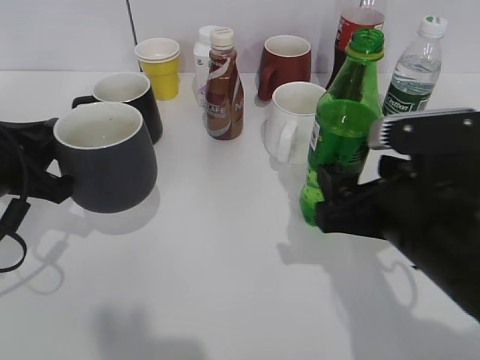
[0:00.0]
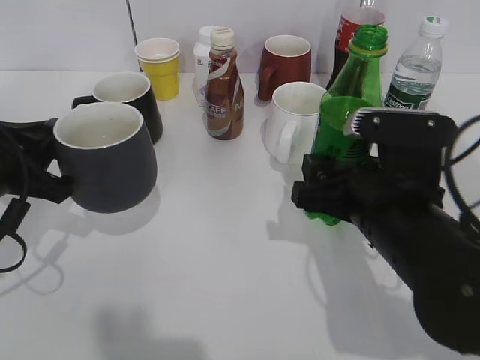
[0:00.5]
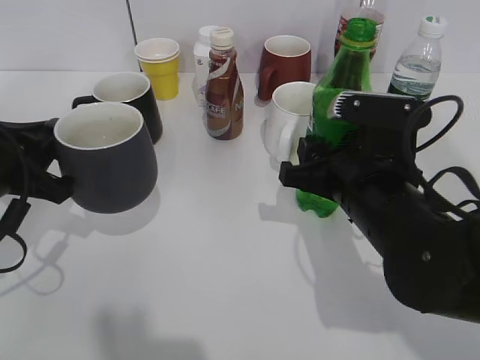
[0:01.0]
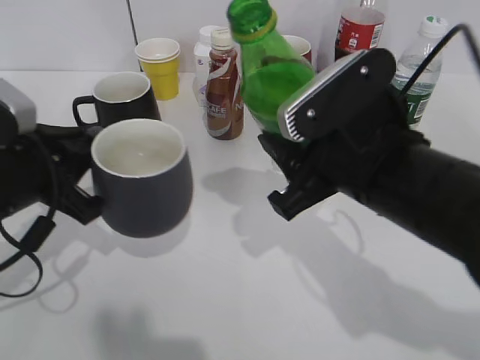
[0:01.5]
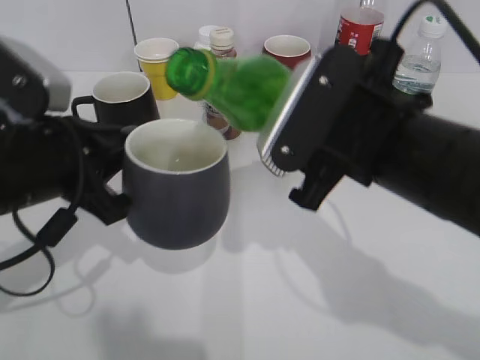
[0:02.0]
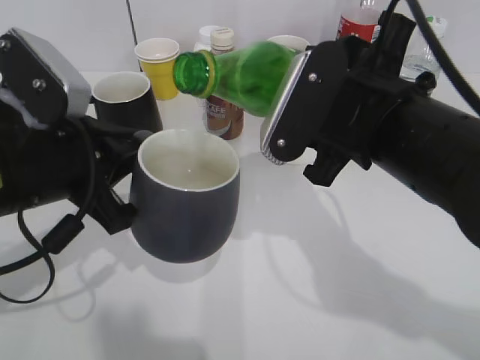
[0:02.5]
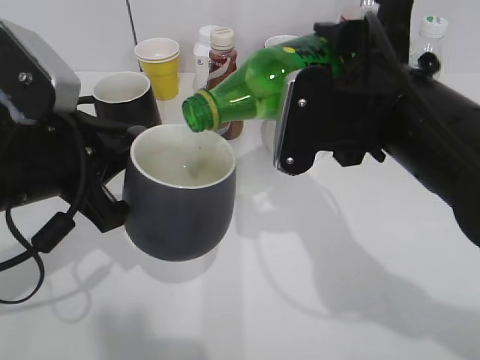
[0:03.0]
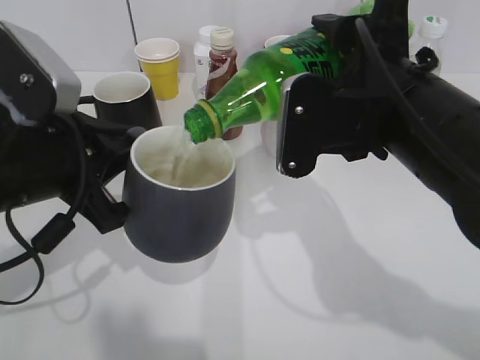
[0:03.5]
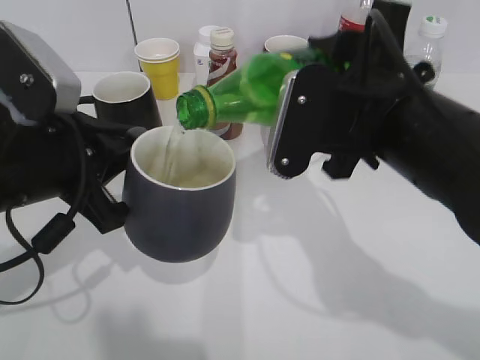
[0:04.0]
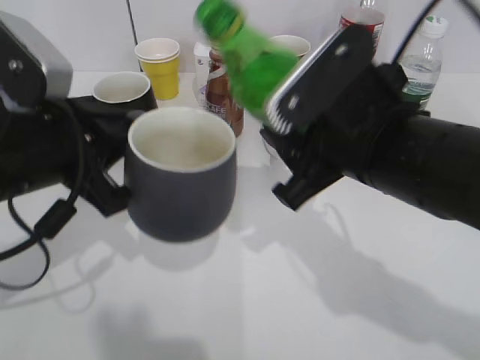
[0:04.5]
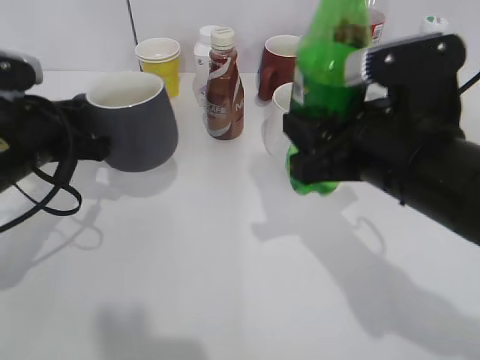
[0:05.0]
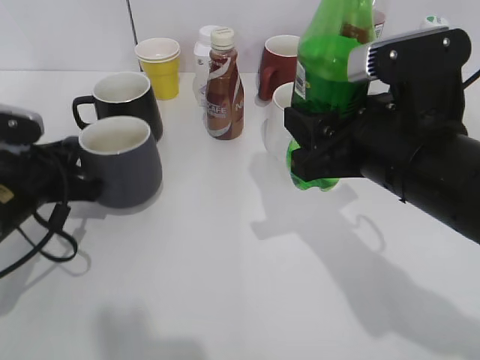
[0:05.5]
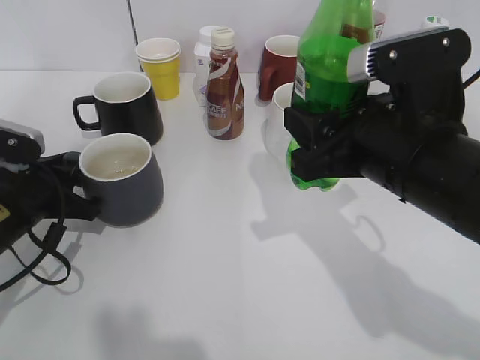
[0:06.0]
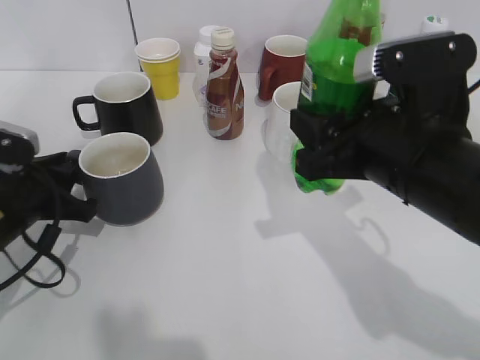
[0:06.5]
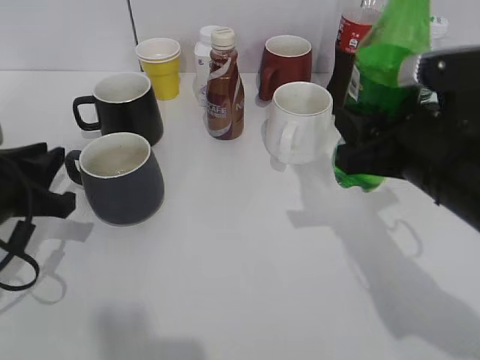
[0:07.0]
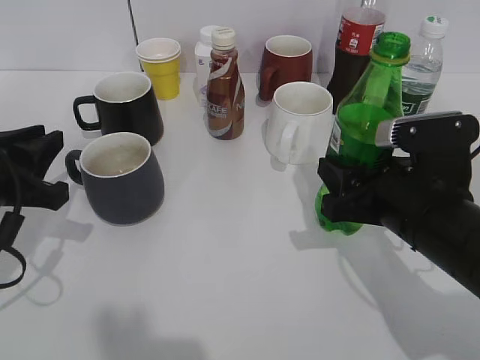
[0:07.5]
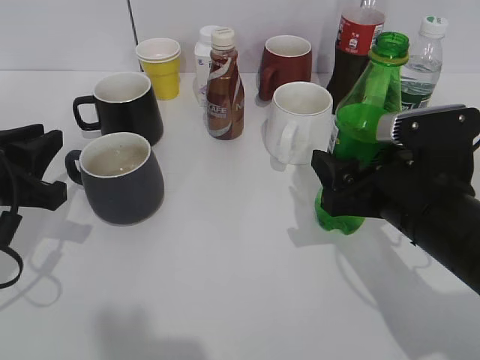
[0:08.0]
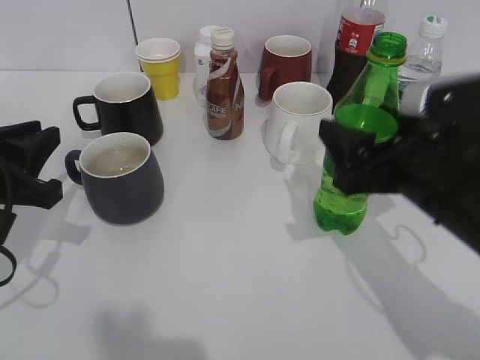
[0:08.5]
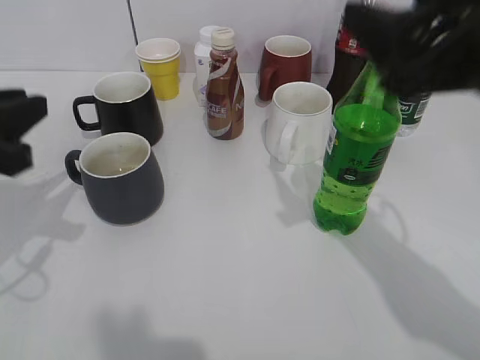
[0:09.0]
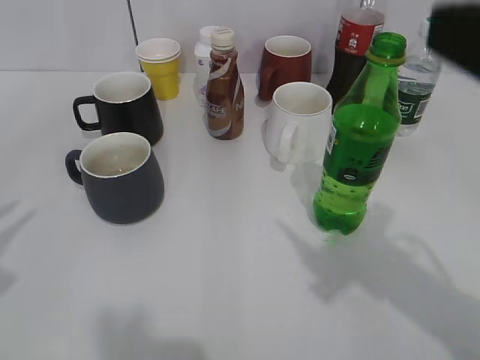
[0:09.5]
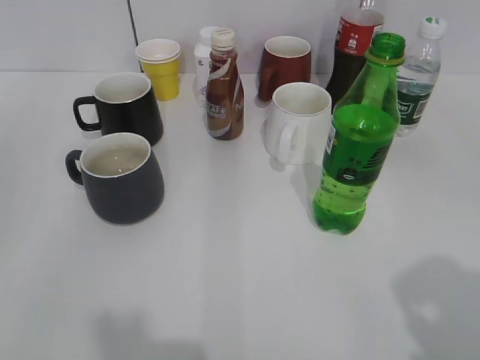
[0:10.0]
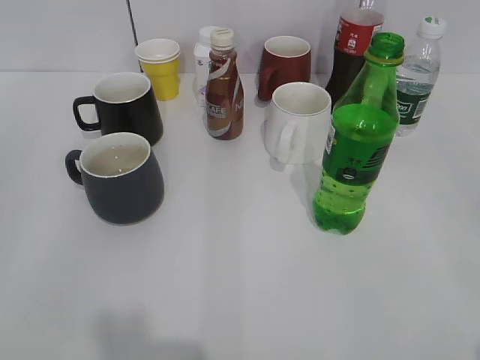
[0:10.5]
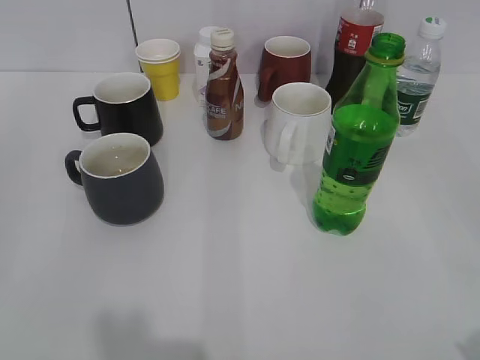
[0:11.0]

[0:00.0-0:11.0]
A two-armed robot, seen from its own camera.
Step, 1.5 to 4.0 s: Pour the sprite from bottle to cup with right gripper.
Step, 4.5 to 6.5 s: Place the grey cup on the table with left gripper.
Step, 7.0 to 8.5 s: Place the sprite bottle on the table with right gripper.
0.0 to 2.0 s: The right gripper goes roughly 5 cm upward, and closes. The left gripper shifts about 5 cm to the right.
3.5 to 5.5 s: The left gripper goes about 15 cm downward, forward and to the left.
5.5 to 7.5 s: The right gripper goes approximately 5 cm downward, while the left gripper moves approximately 5 cm, and opens.
7.5 to 9.0 s: The left gripper is displaced upward by some 5 cm. The right gripper goes approximately 15 cm upward, and opens.
9.0 to 11.0 s: The left gripper moves backward and to the left, roughly 20 cm, and opens. Meanwhile the right gripper heads backward and to the right, covering about 20 cm.

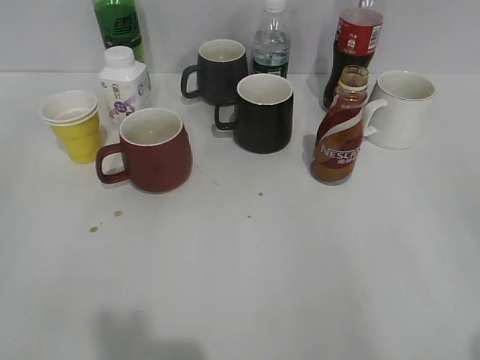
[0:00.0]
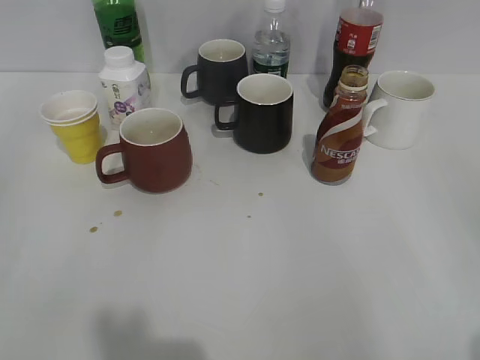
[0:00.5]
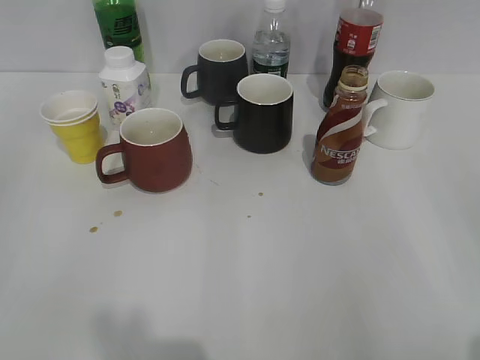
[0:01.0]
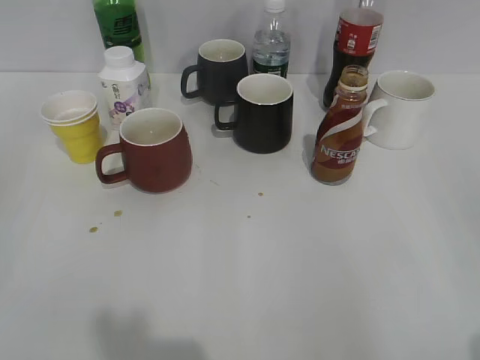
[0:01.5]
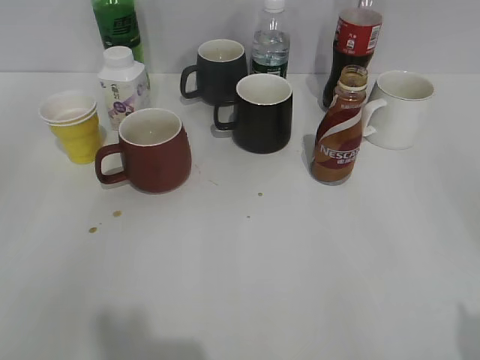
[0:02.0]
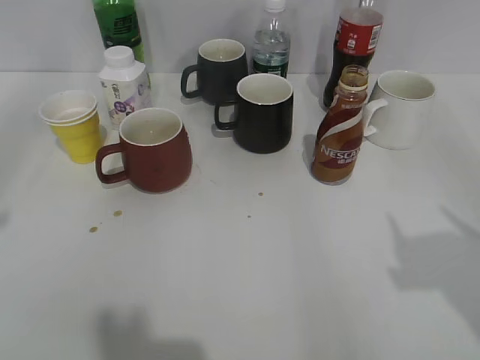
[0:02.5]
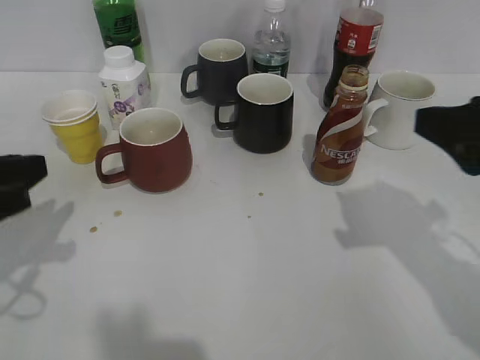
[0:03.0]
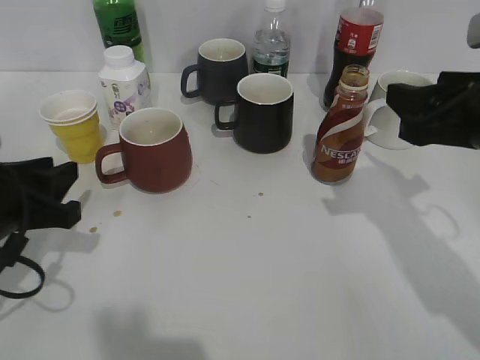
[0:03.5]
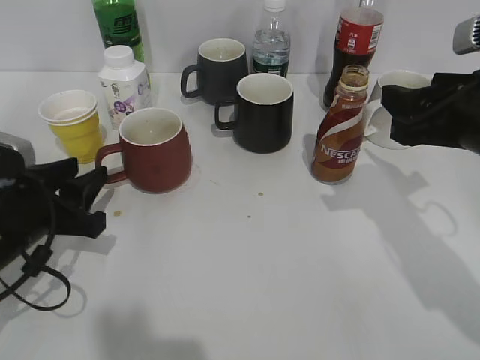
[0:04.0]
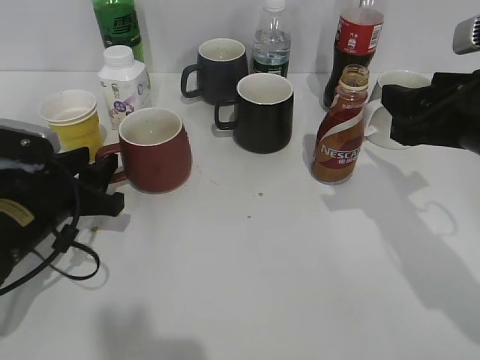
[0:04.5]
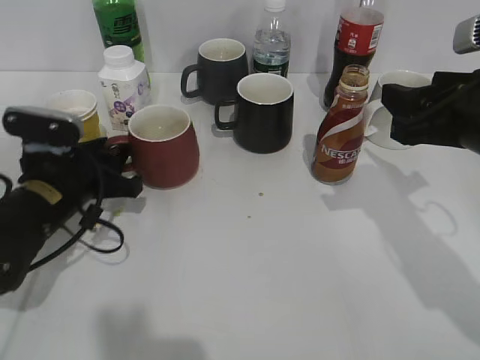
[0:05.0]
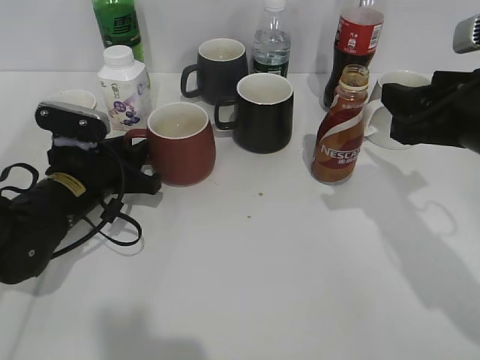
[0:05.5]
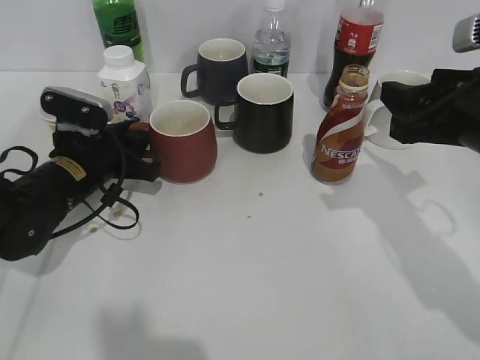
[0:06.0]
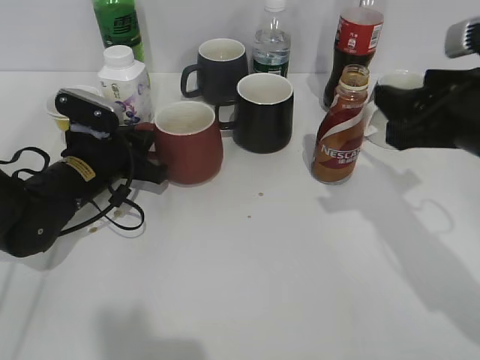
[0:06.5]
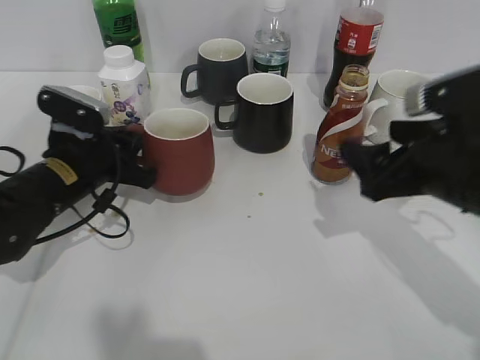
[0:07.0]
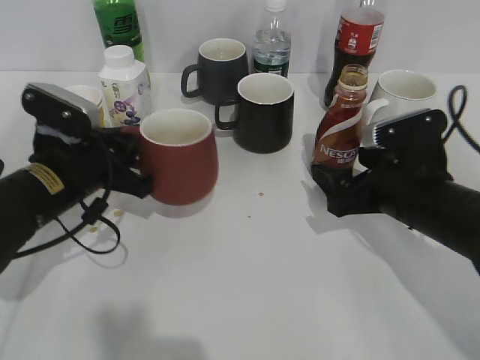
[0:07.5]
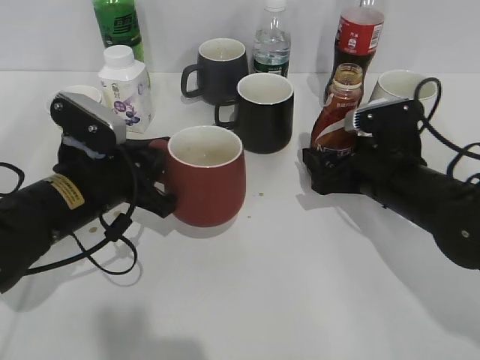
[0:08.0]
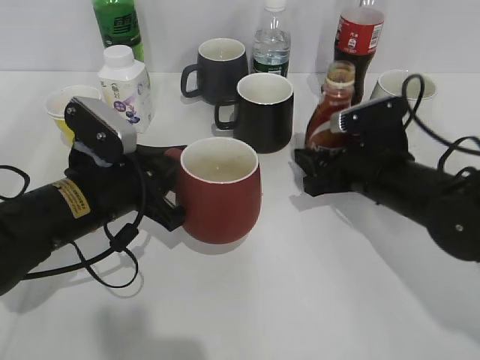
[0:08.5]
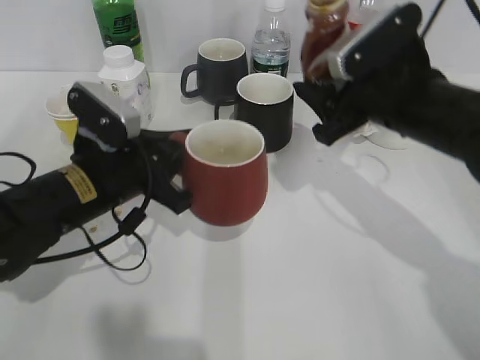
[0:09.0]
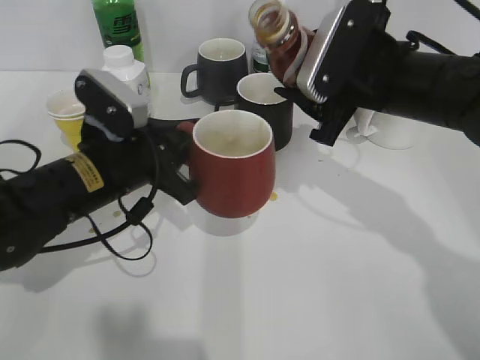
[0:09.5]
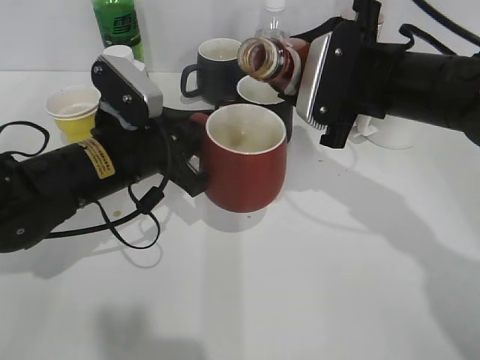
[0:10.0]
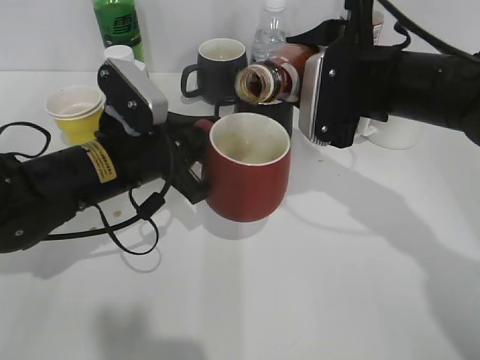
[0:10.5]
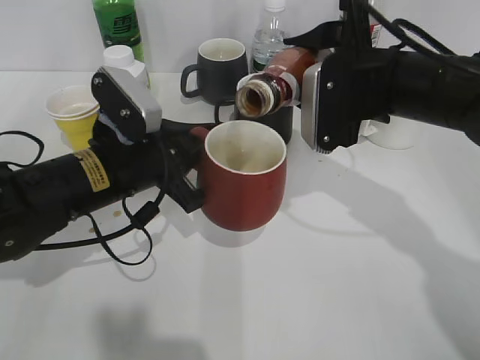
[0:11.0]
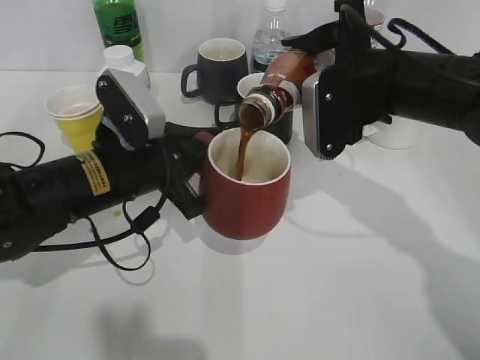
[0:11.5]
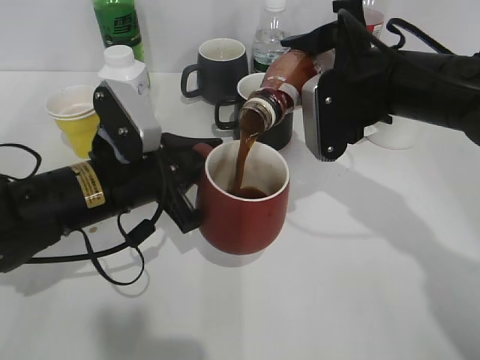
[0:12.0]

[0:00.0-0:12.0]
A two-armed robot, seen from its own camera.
Step, 2.0 to 6.5 s: Grasp the red cup with left gripper.
Step, 7.0 to 8.0 s: Grasp the bottle with coffee with right gripper.
2.0 to 4.0 s: The right gripper goes approximately 25 cm forward, and closes up; the left gripper heads forward, downward and to the right, covering about 30 cm, and opens.
4.0 to 6.0 s: The left gripper moves forward, approximately 10 cm, and closes its fingers.
6.0 to 8.0 s: The left gripper shifts approximately 5 cm backward, and closes. Meanwhile the right gripper shifts about 15 cm downward and forward, and opens up.
8.0 to 10.0 s: The right gripper travels upward by approximately 10 cm, and closes its fingers.

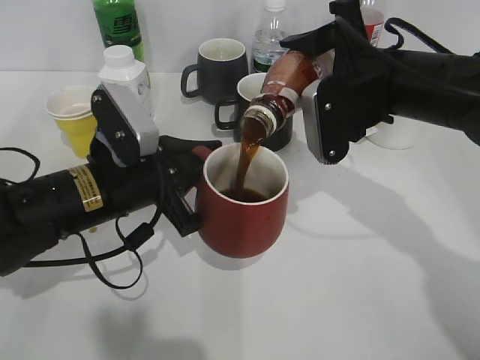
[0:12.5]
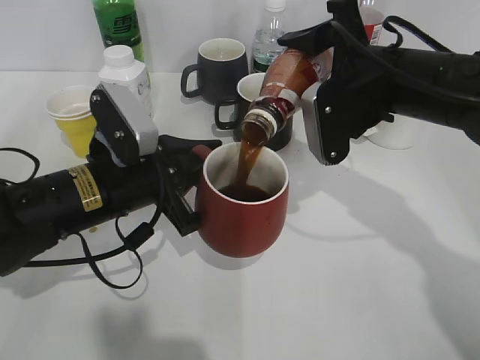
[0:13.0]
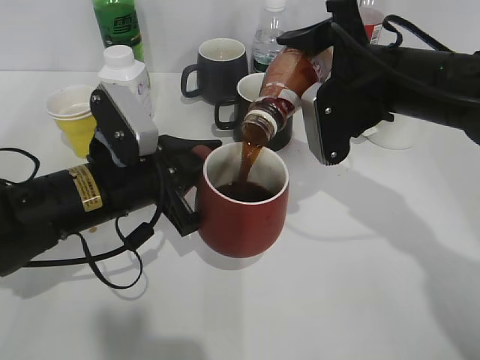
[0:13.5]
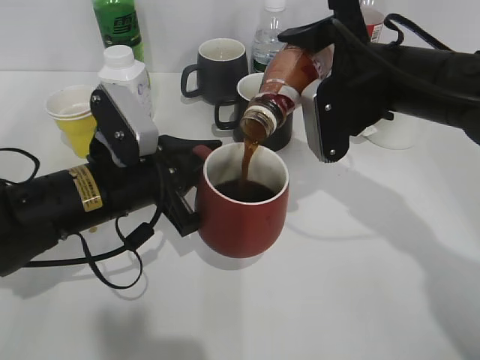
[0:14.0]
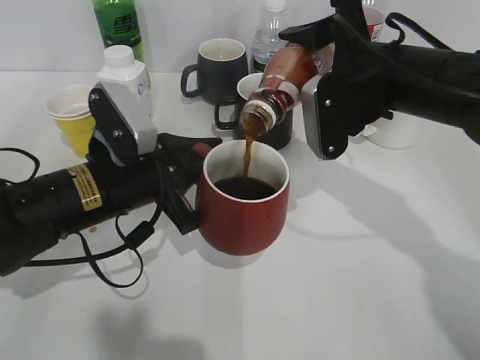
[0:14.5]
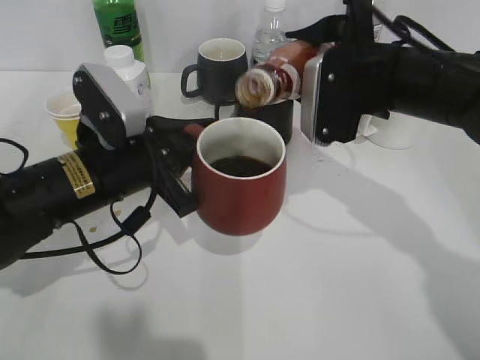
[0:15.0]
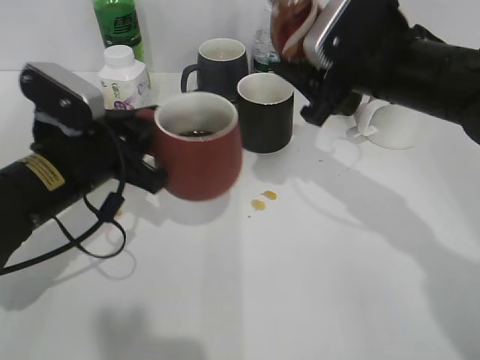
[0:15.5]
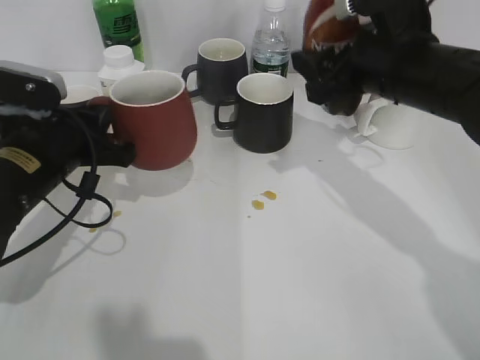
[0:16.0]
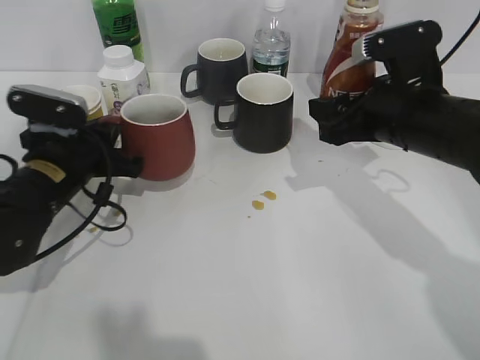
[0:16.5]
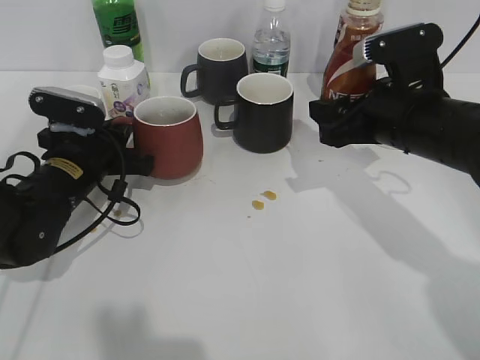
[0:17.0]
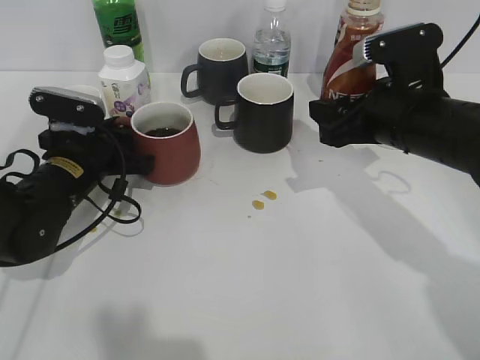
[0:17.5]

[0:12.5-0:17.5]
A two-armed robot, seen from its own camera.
Step, 12.5 to 15.0 s: Pour the coffee from bottle to cup with right gripper.
12.5 to 15.0 s: The grippers stay close to where they were, moving slightly.
15.0 to 17.5 s: The right gripper changes place by approximately 5 cm. Meanwhile the left gripper goes about 10 cm forward, to the left and downward, and opens.
